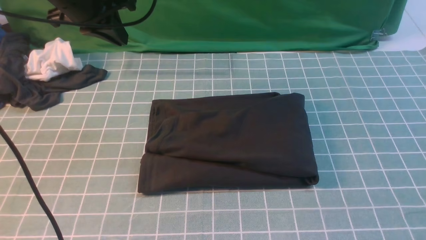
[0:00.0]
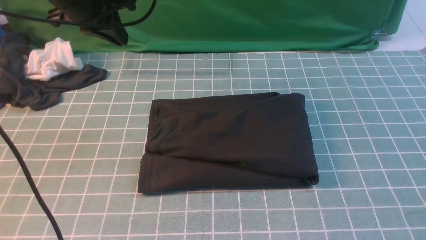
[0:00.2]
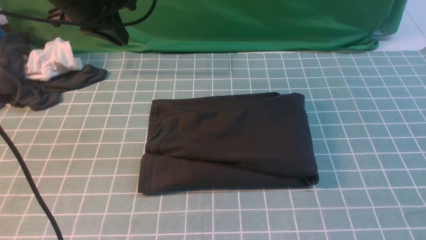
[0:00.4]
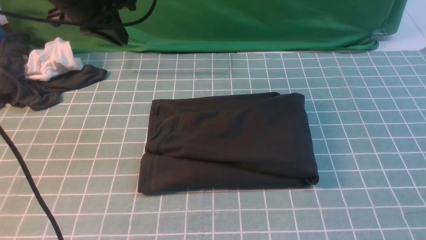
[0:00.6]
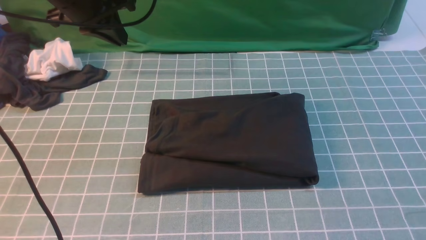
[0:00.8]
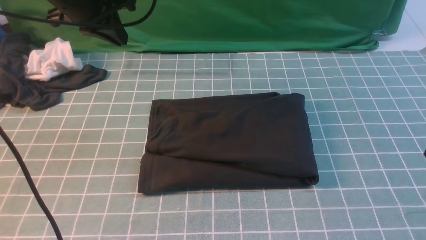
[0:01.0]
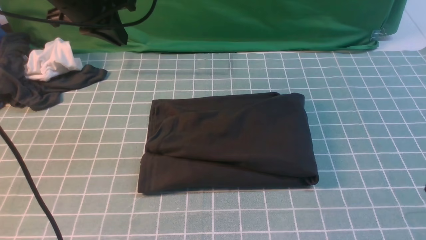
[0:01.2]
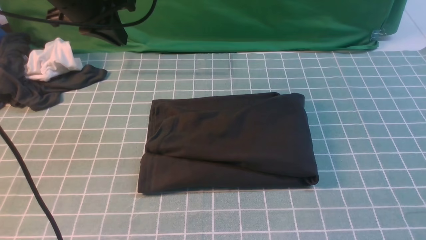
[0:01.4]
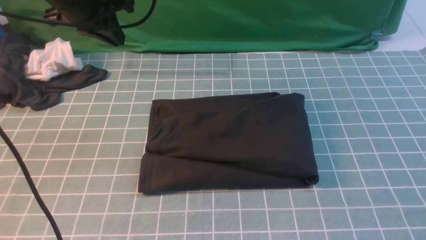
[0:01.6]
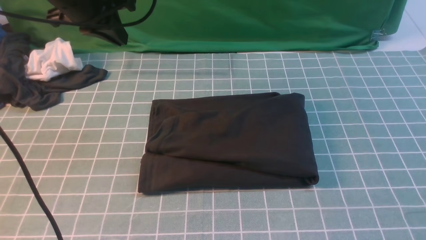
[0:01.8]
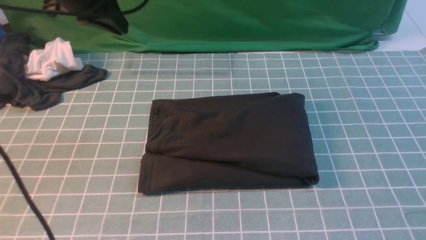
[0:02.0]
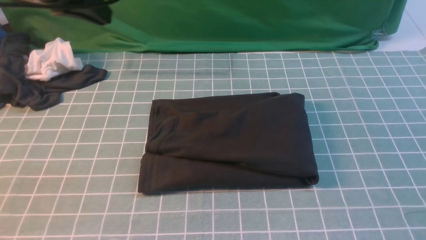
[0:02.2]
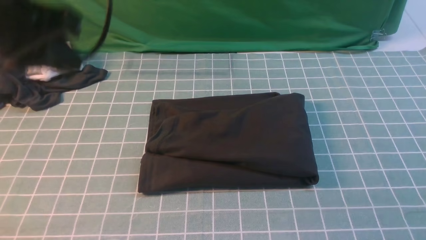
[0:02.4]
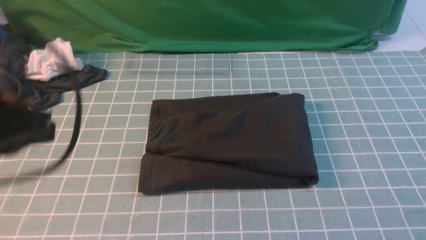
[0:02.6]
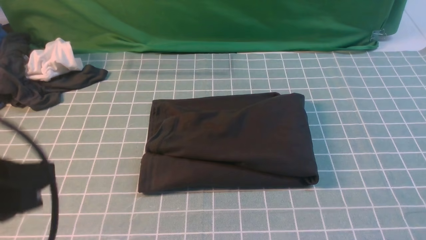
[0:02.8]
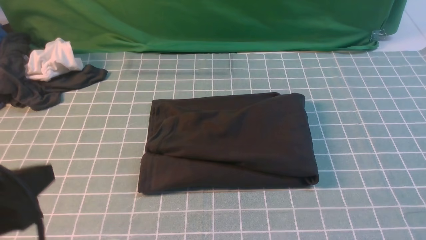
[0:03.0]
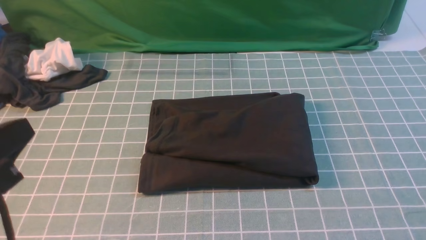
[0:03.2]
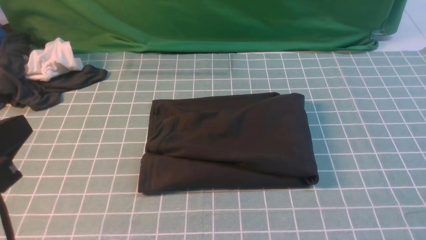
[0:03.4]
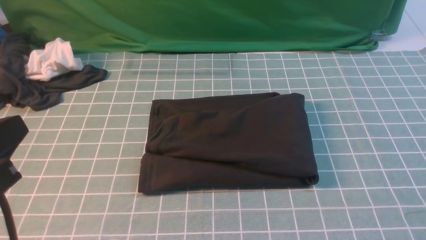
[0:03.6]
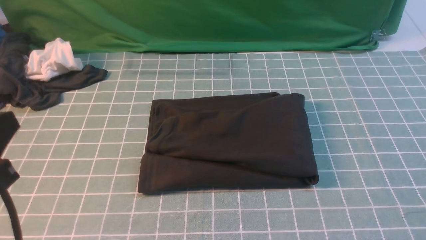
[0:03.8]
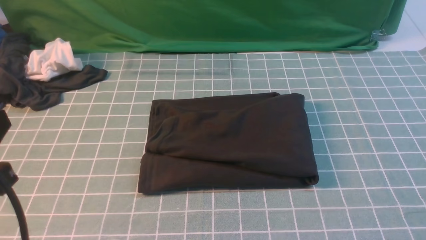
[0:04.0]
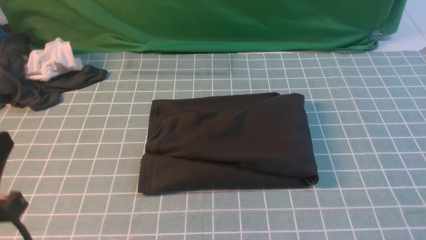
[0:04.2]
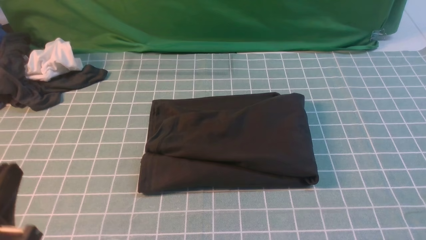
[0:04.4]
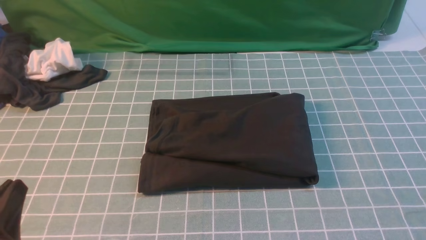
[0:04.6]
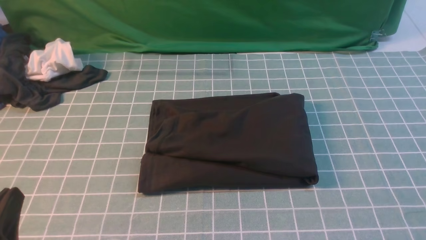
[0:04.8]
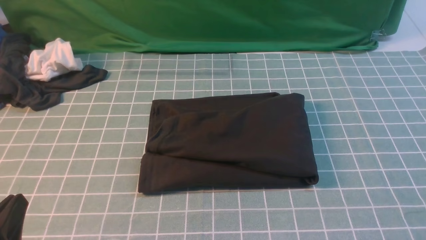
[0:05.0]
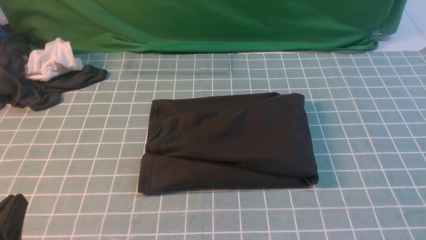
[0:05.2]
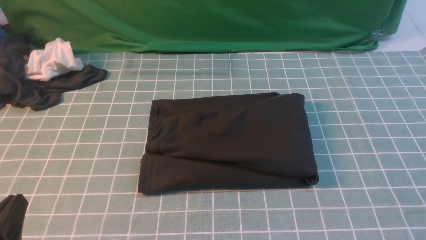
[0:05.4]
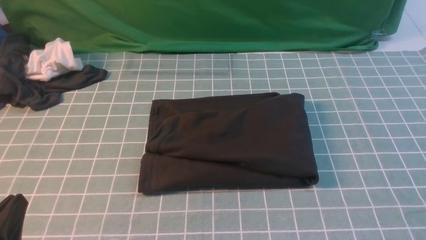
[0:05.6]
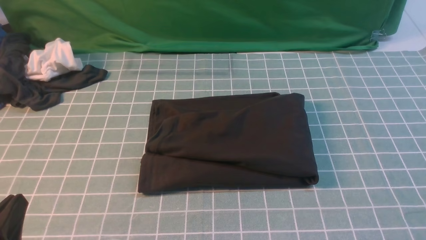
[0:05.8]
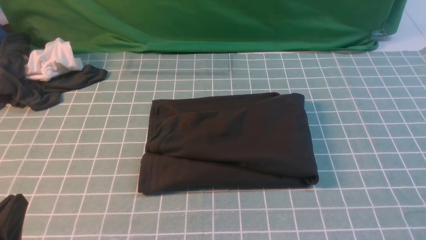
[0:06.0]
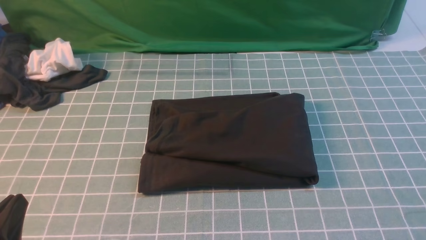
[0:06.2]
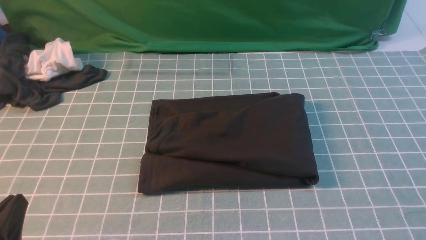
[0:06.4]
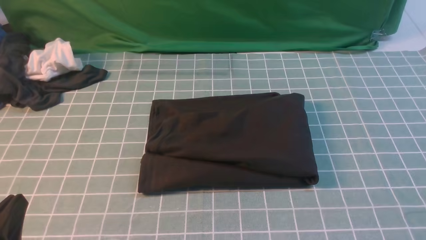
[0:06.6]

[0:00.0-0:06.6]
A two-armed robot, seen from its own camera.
0:01.6 to 0:03.2: The left gripper travels backward by about 30 cm.
0:03.2 to 0:05.0: The left gripper goes about 15 cm downward.
0:05.0 to 0:06.6: The two grippers keep their place.

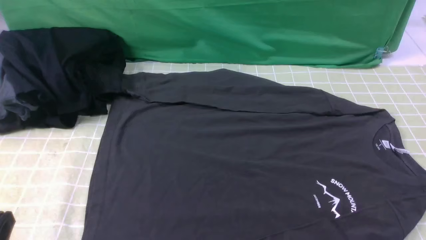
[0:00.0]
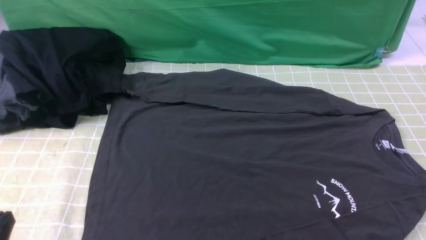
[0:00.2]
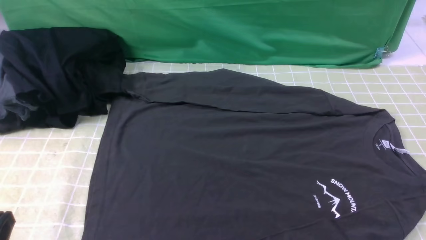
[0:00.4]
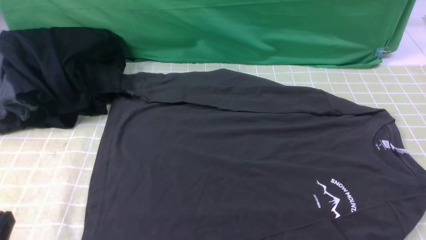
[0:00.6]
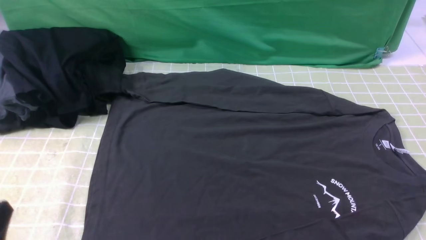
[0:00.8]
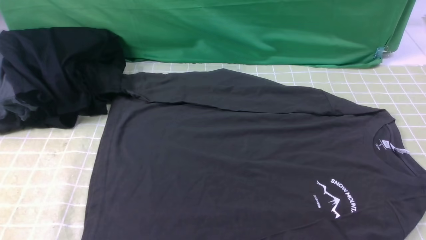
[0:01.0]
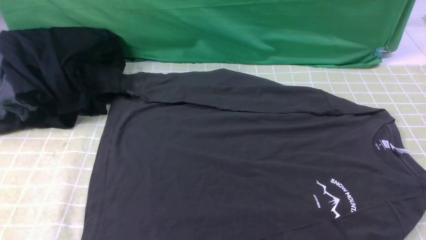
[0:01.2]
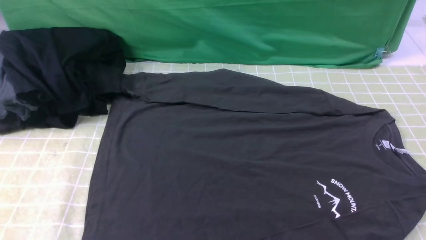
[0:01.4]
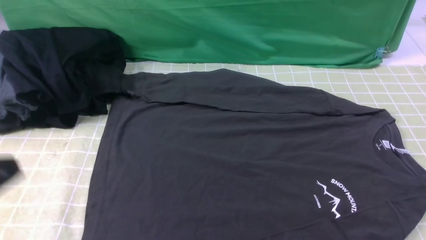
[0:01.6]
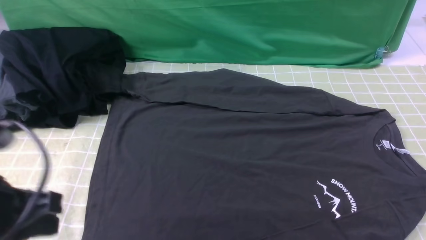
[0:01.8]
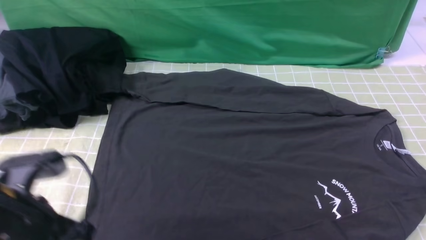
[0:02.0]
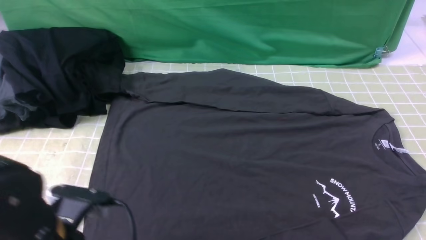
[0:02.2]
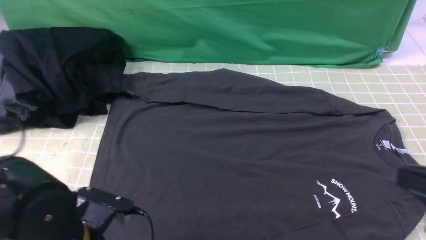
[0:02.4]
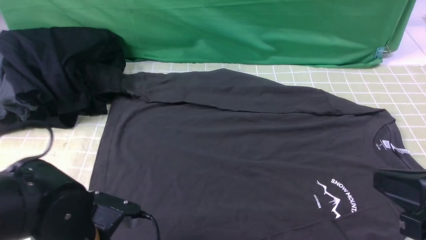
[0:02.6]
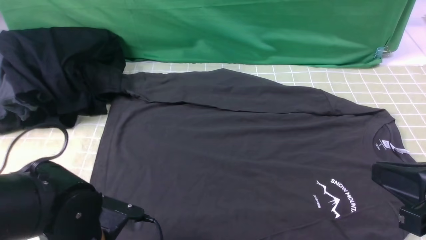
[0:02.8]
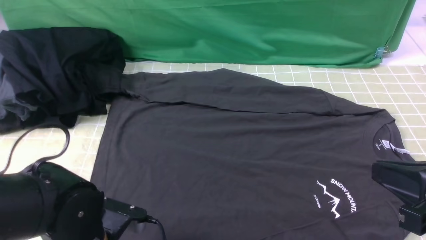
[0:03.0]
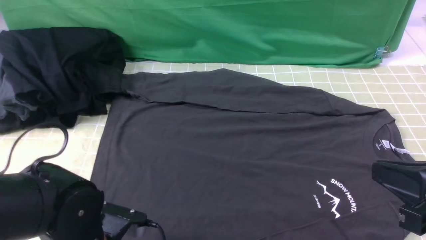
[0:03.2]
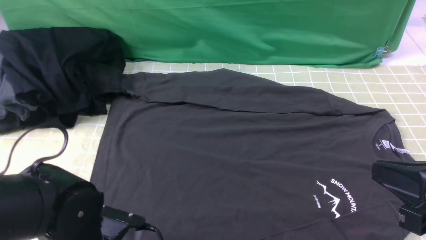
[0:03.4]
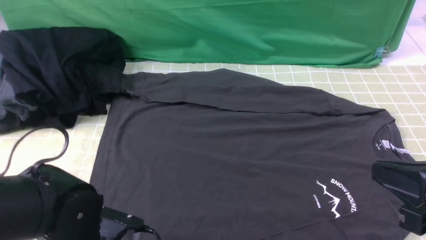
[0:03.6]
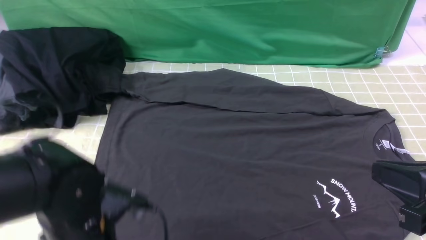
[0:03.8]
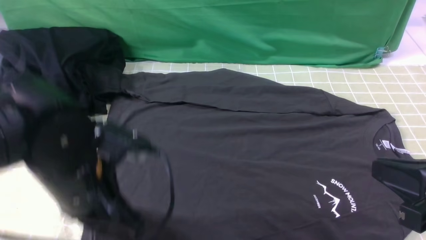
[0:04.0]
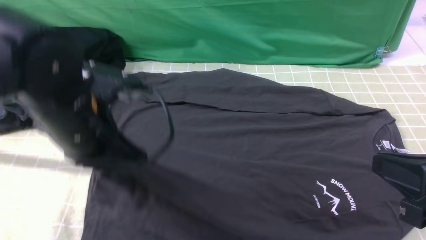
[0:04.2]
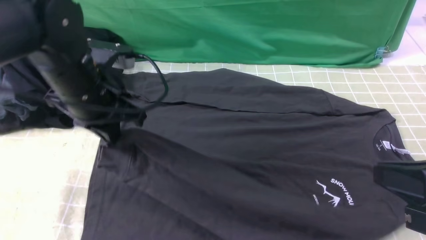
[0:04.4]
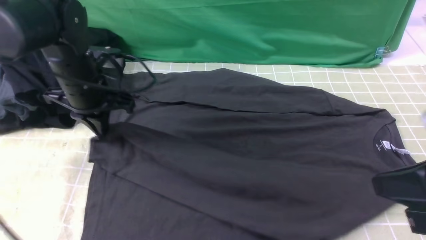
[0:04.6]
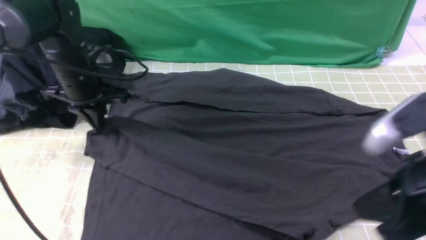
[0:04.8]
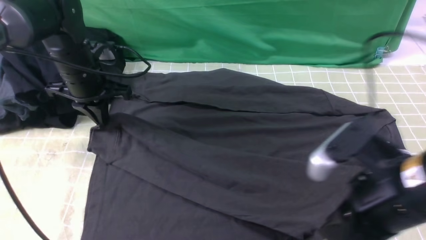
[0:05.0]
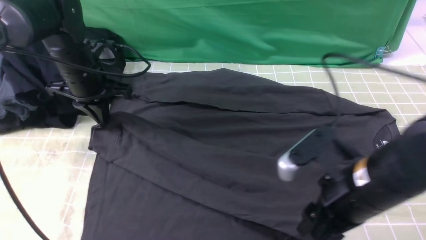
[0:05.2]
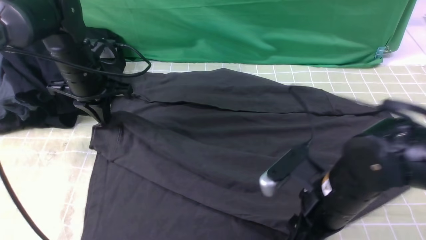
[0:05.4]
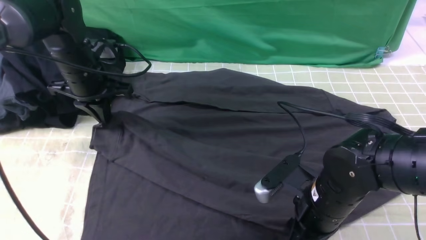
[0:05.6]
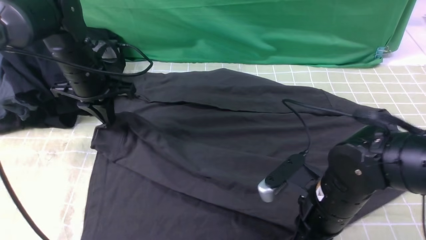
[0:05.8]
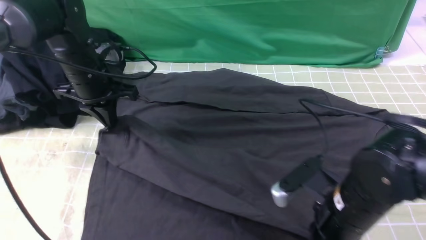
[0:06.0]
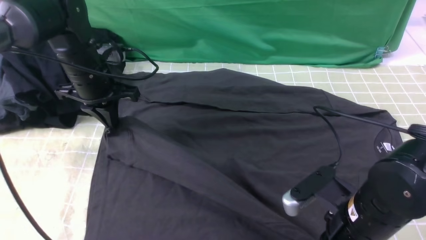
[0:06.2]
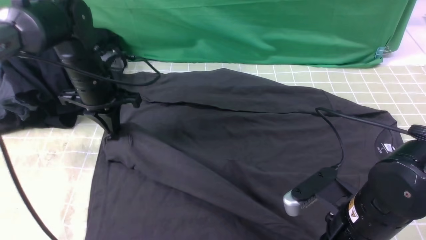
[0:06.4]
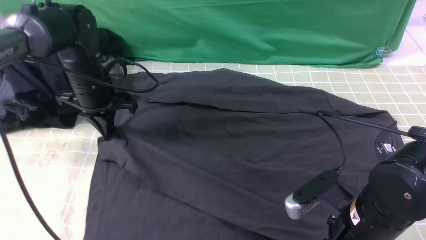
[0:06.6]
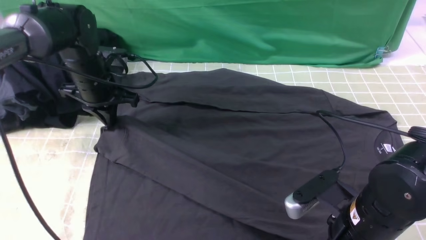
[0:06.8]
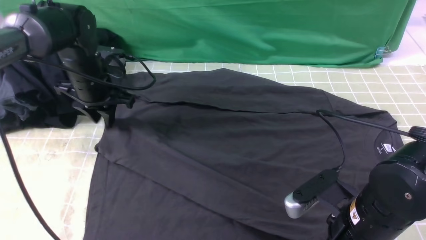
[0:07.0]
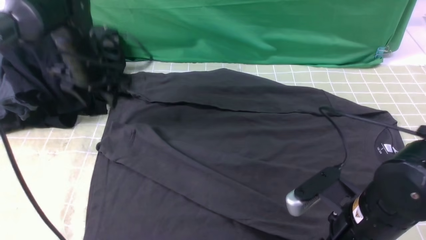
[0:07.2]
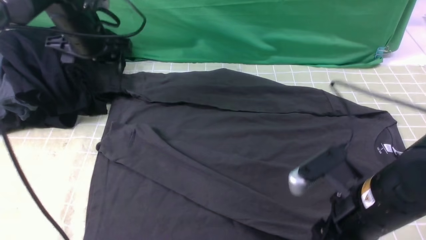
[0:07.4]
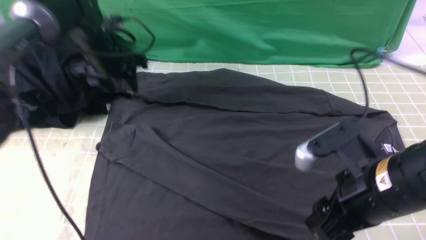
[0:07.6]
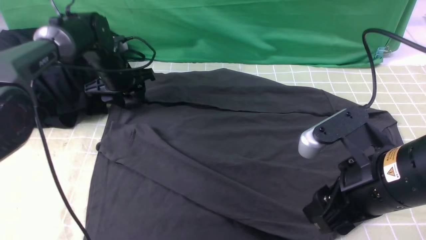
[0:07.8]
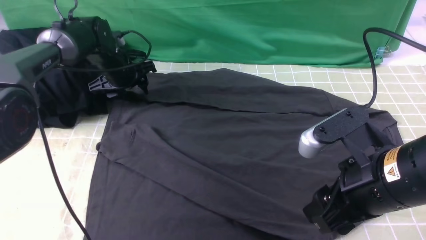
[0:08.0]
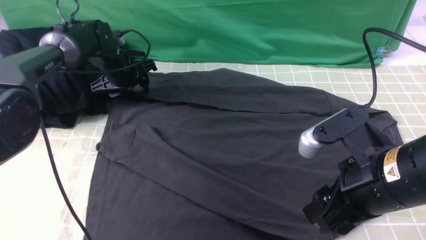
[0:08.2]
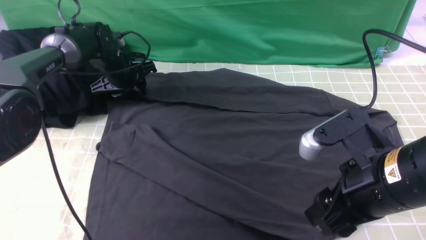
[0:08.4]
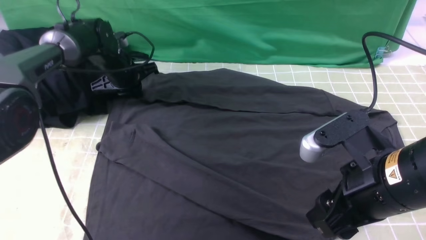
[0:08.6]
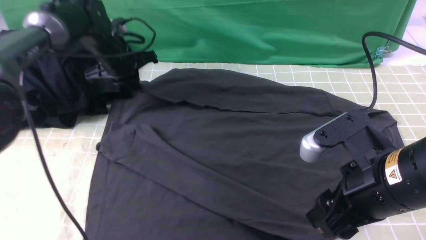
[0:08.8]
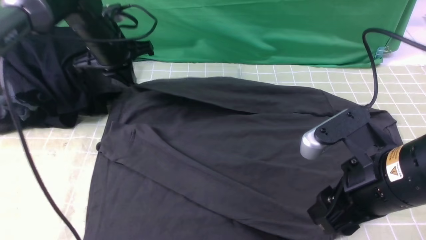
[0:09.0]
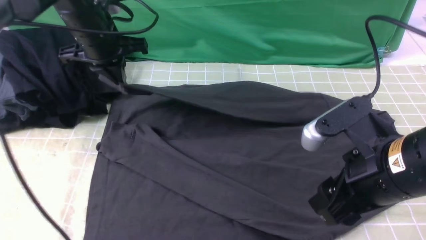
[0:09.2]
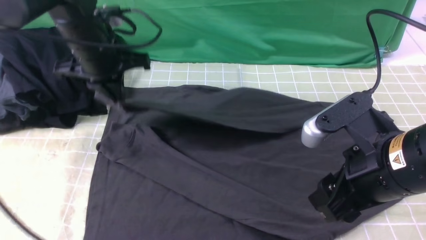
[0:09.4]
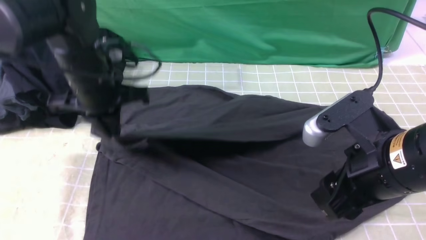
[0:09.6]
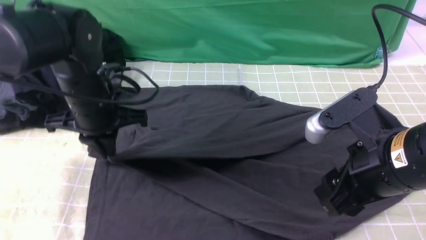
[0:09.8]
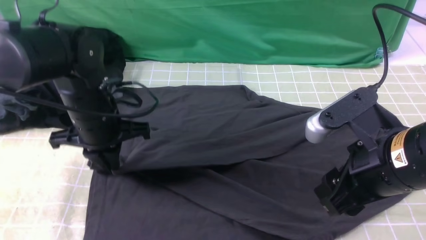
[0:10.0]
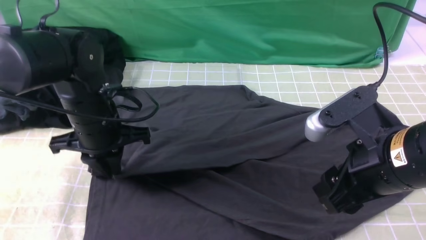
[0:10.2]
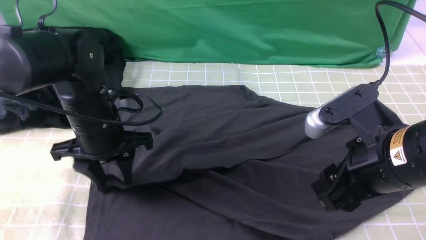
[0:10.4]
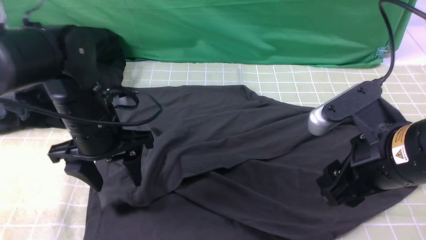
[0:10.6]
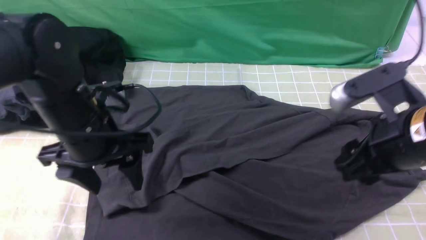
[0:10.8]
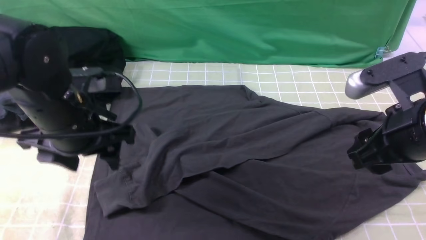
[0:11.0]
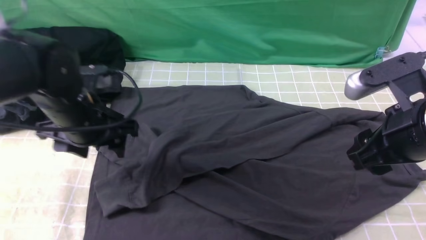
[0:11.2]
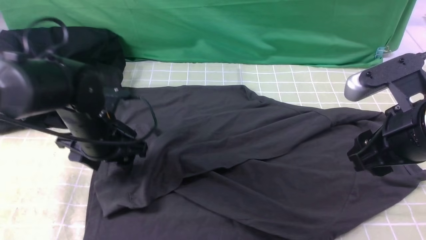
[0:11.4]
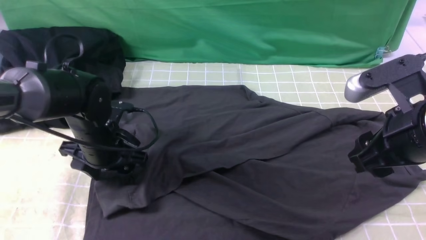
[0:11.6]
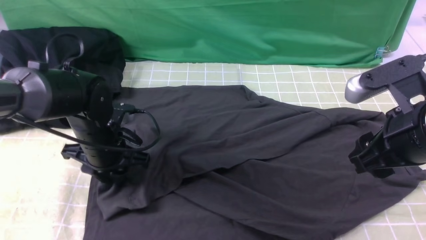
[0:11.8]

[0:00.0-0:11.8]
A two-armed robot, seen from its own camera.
Step, 0:00.0 to 0:03.2: use the left arm to clamp the cuff closest to it.
Step, 0:03.4 to 0:07.0: use the left arm to drag and place the cuff at the centered position on the left edge of the fabric.
Step, 0:07.4 to 0:08.6: use the left arm to clamp the cuff farthest from it.
0:01.4 to 0:03.0: The left gripper is displaced downward, to the right and forward by some 20 cm, and opens up. Meanwhile the right gripper heads upward, to the left and forward, covering about 15 cm, and closes up.
0:03.0 to 0:04.4: The left gripper shifts approximately 20 cm forward and upward, and closes.
0:04.4 to 0:06.0: The right gripper travels downward, to the left and forward by about 20 cm, and opens, then closes once more, while the left gripper shifts roughly 10 cm forward.
0:06.0 to 0:07.4: The right gripper changes place by some 5 cm, and opens; the left gripper is displaced forward by some 5 cm, and opens its fingers.
0:07.4 to 0:08.8: The left gripper moves about 10 cm downward and comes back, and closes its fingers.
0:08.8 to 0:10.4: The left gripper travels backward by roughly 20 cm, and opens its fingers.
0:10.4 to 0:11.8: The left gripper heads downward, covering roughly 5 cm.
